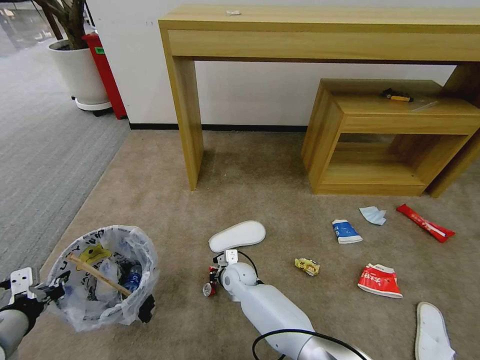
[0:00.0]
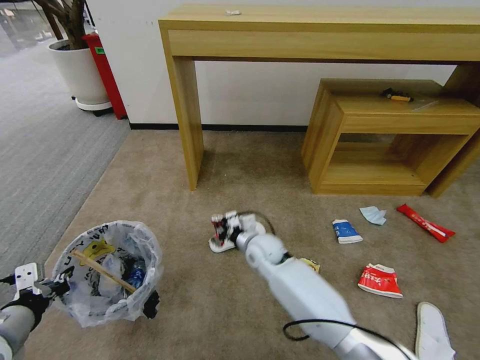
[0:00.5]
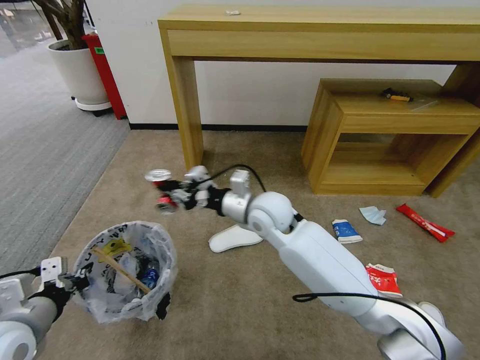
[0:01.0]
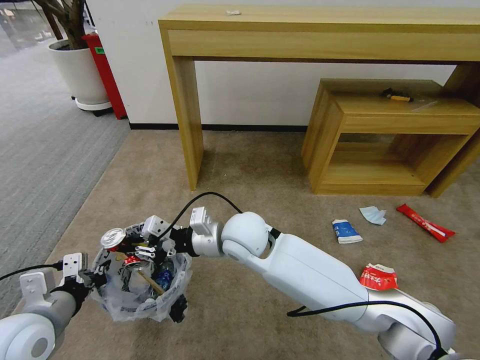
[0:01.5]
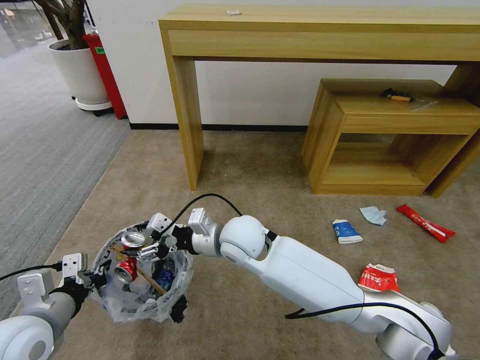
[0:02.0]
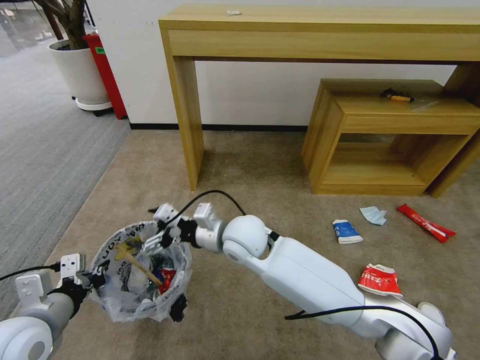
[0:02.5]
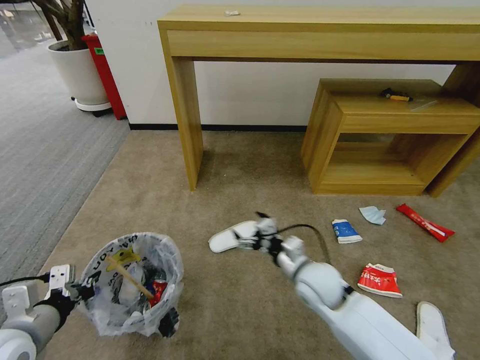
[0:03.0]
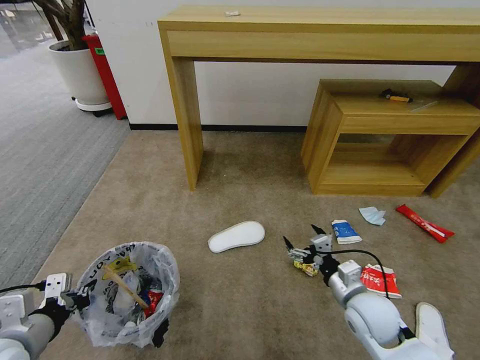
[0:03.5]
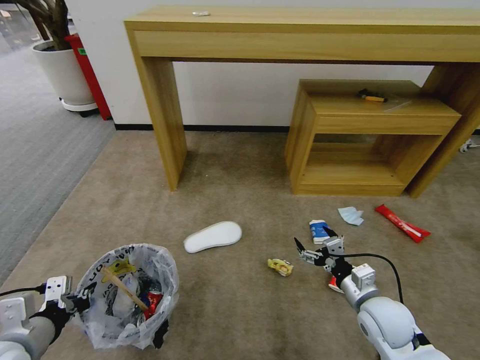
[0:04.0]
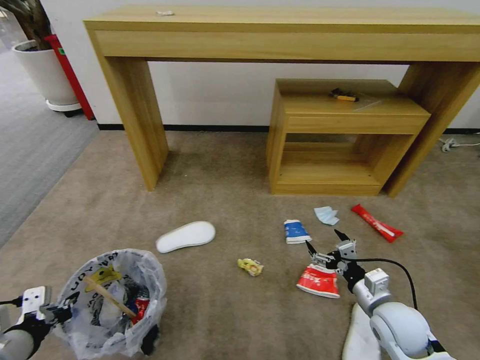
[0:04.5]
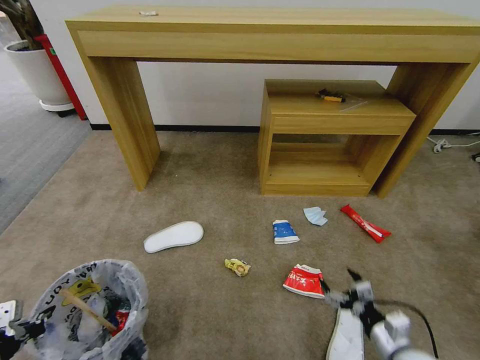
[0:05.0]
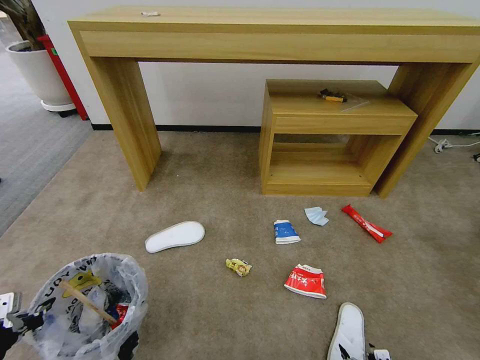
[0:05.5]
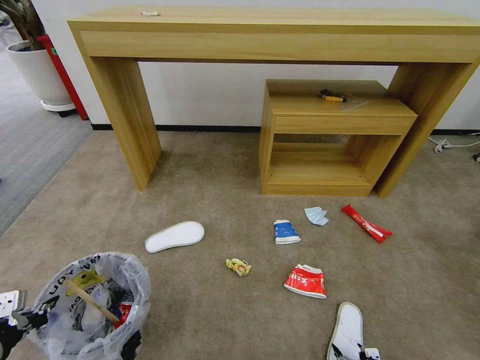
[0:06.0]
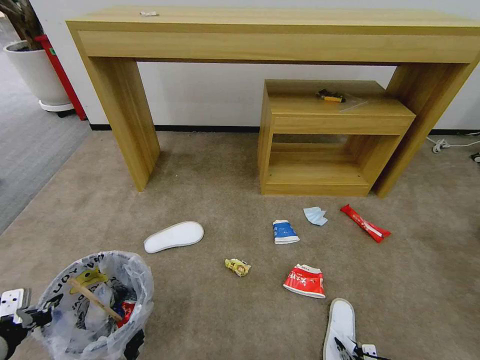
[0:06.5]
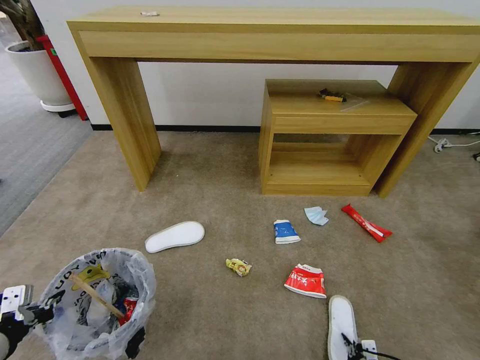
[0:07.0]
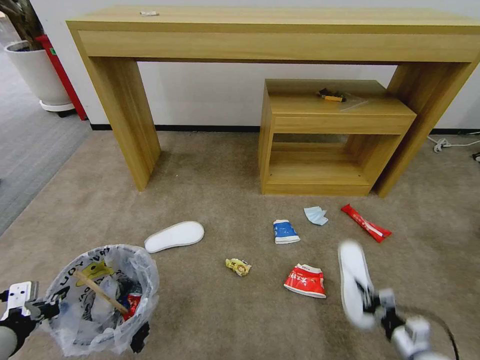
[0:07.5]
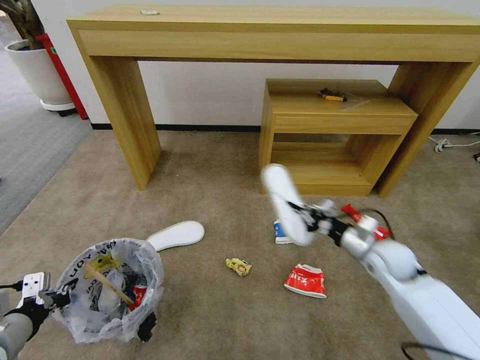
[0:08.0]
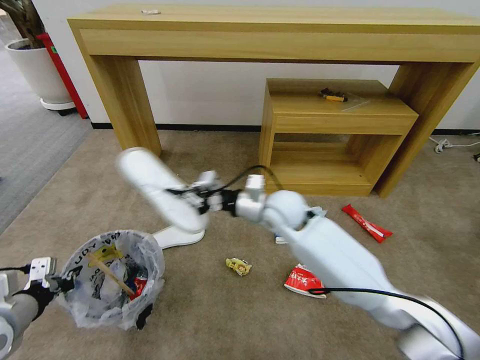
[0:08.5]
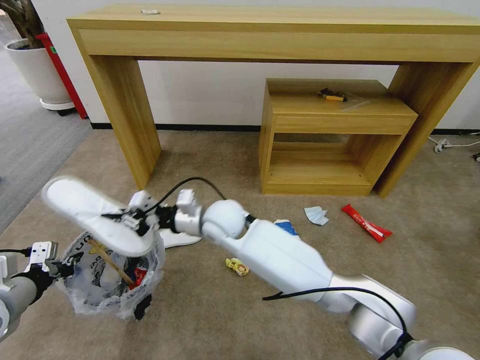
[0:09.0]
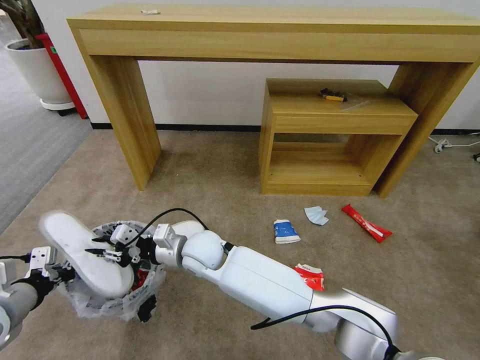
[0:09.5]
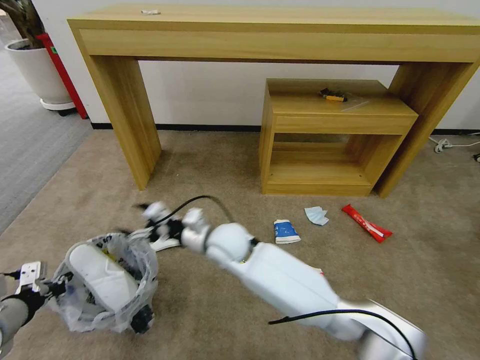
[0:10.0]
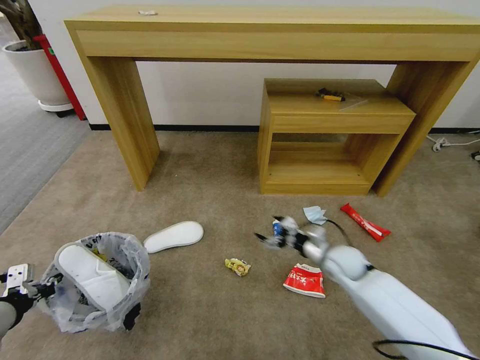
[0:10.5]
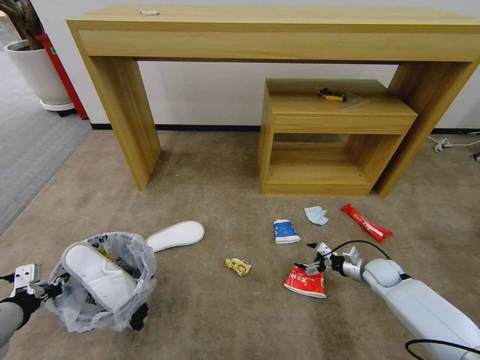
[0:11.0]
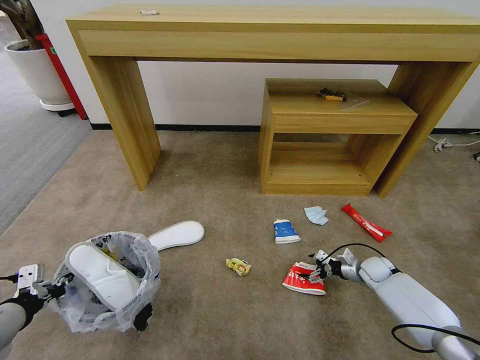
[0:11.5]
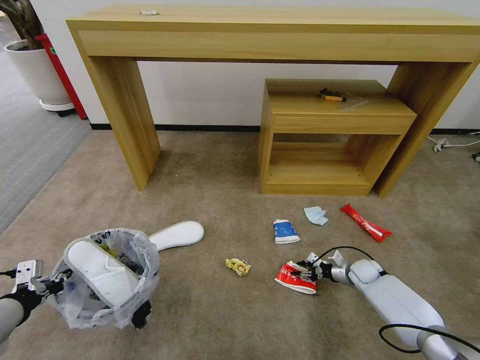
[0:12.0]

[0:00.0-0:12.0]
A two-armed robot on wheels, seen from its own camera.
Task of the whole recording: Pick up the trash bin and place the garbage on the floor into it.
0:00.0 to 0:02.0: The right gripper moves upward, some 25 cm, and opens up. The left gripper moves to the right, about 5 cm.
0:02.0 to 0:04.0: The left gripper moves some 5 cm, while the right gripper is displaced to the right, downward and backward by roughly 35 cm.
0:04.0 to 0:06.0: The left gripper goes some 5 cm to the left. Meanwhile the right gripper heads backward, downward and to the right, covering approximately 30 cm.
0:06.0 to 0:08.0: The right gripper heads forward and upward, covering roughly 40 cm, and closes up.
0:08.0 to 0:10.0: The right gripper shifts some 35 cm to the left, and opens its fingers.
0:10.0 to 0:12.0: The right gripper goes roughly 50 cm to the right and downward.

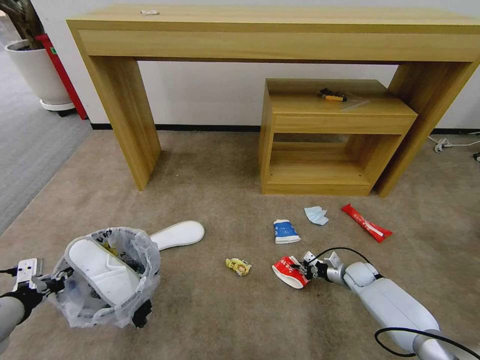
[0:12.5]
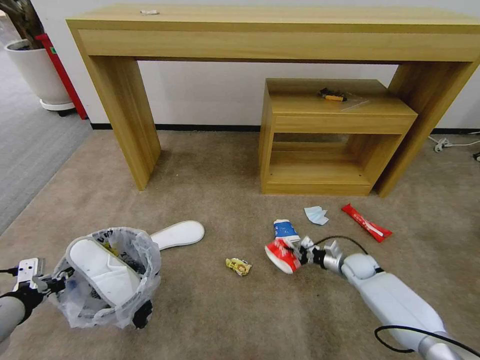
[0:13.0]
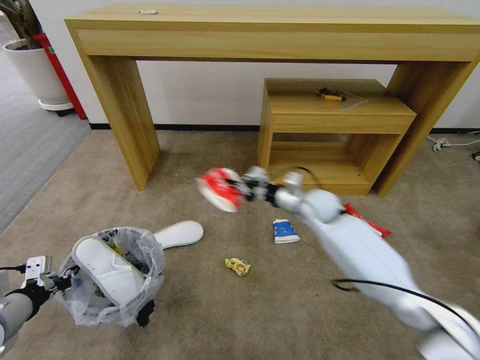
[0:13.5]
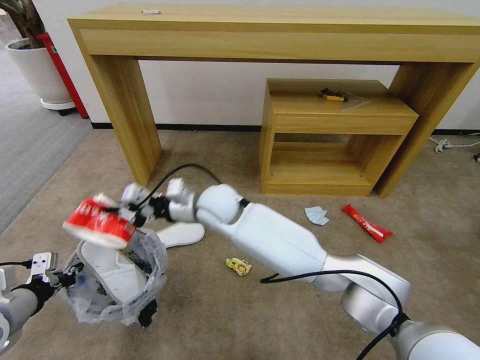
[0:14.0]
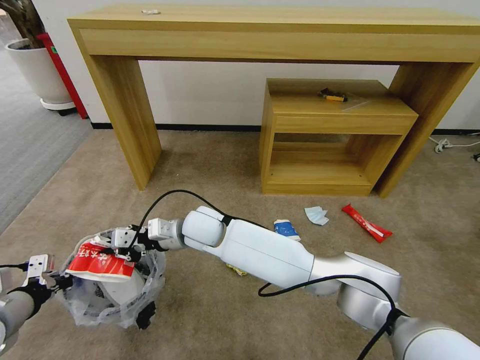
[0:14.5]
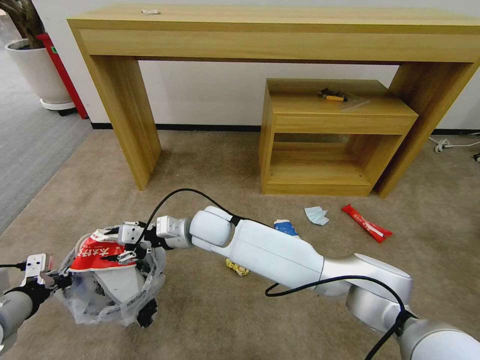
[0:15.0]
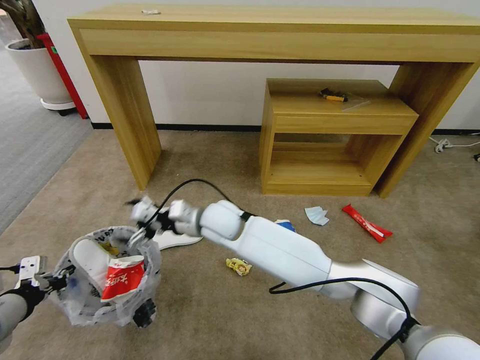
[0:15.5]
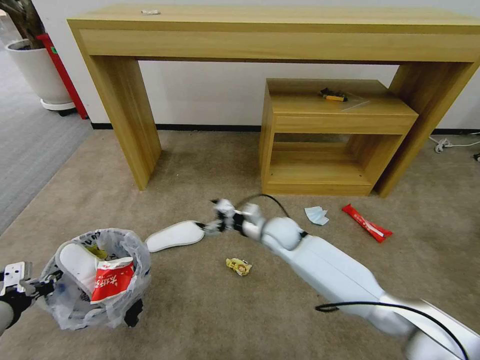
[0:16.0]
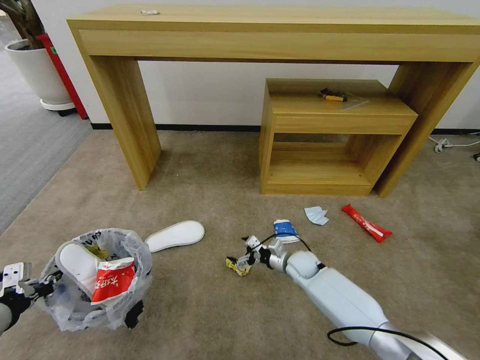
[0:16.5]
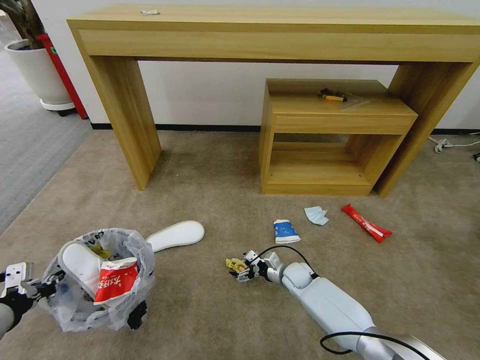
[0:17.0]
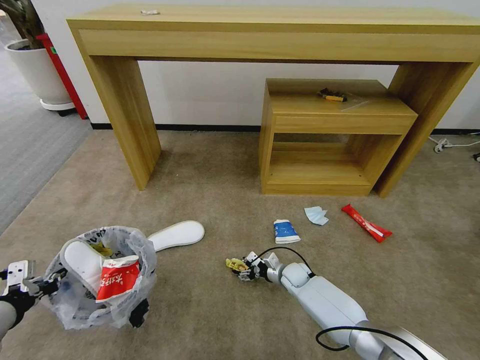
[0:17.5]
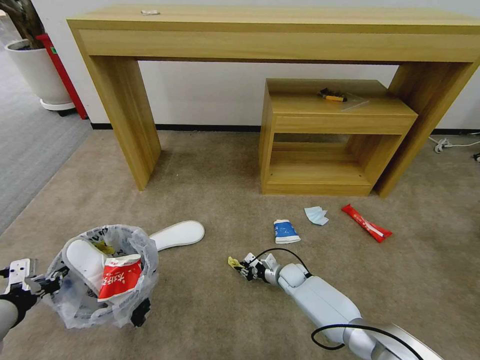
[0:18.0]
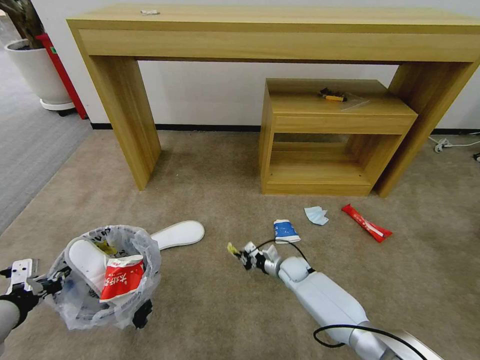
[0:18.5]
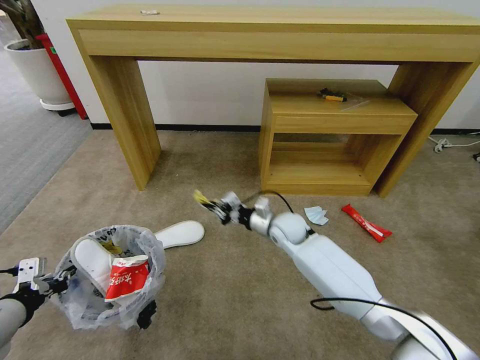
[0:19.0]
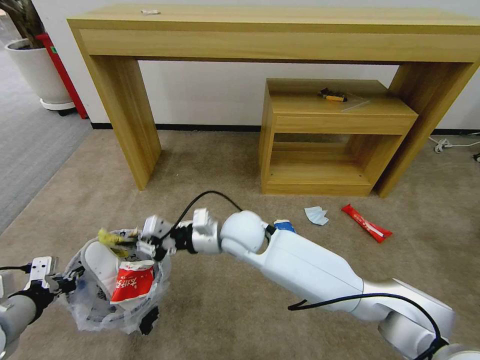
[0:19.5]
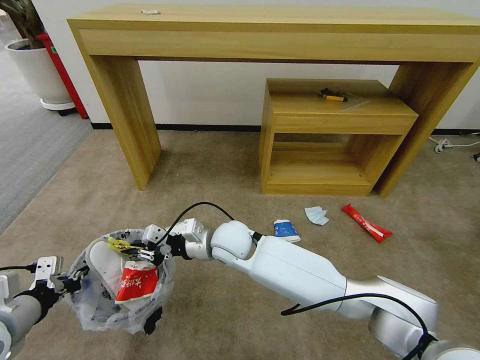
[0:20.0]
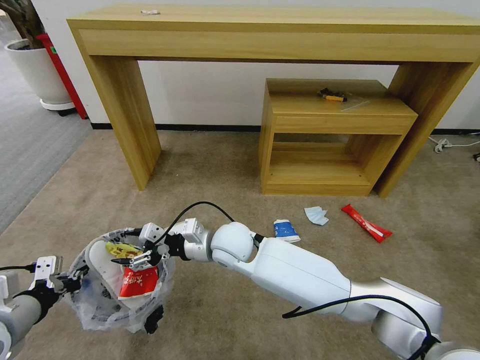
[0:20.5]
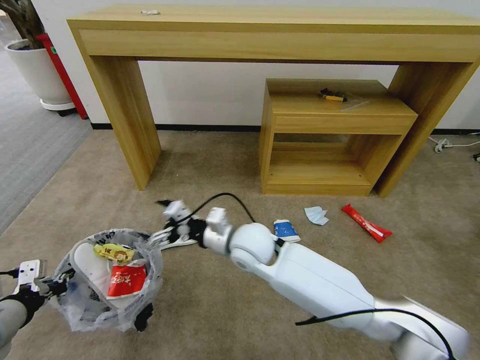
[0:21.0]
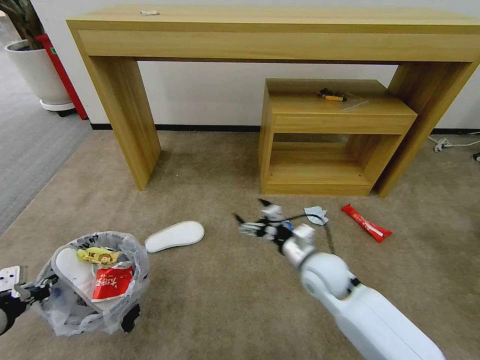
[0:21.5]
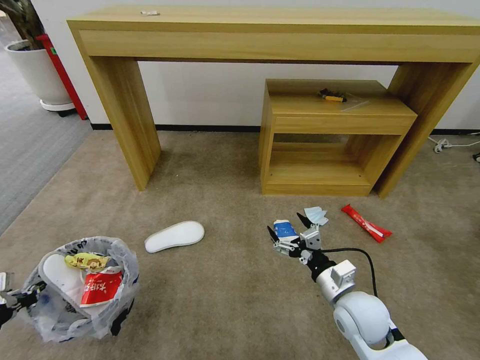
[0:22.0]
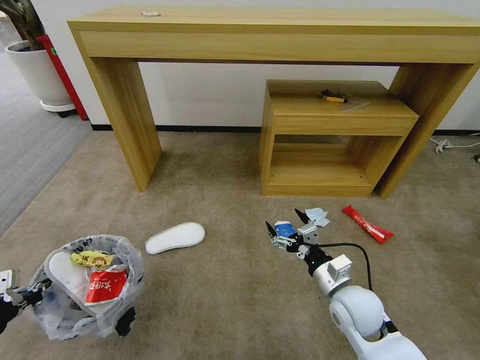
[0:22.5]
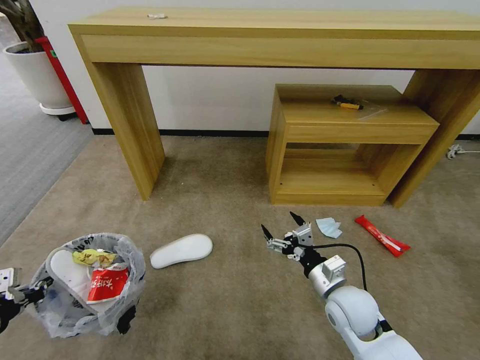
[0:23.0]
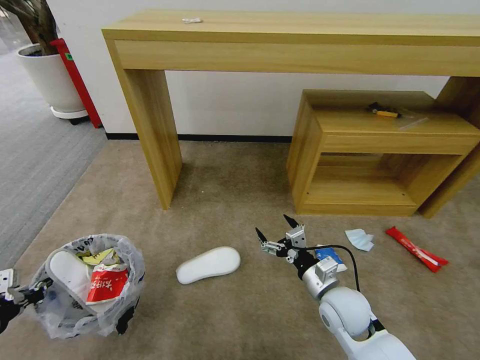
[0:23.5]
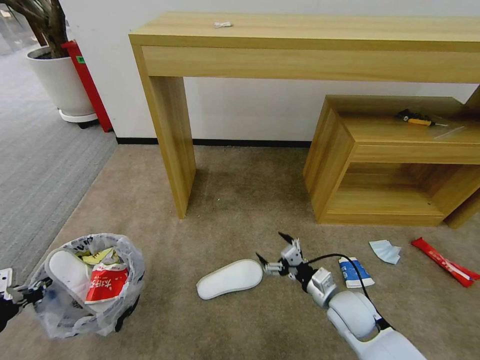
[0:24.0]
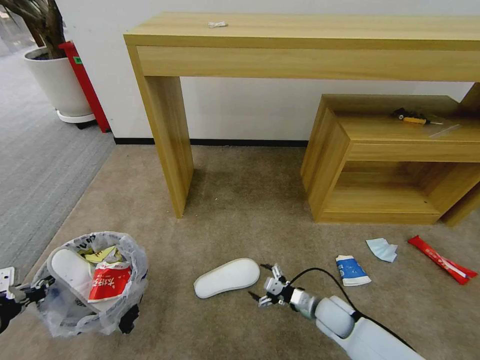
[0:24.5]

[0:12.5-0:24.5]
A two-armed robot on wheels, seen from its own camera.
Task of the whole recording: Pick up the trash bin and place the garbage on the floor into it.
0:12.5 to 0:14.5: The right gripper heads to the left and upward, covering roughly 50 cm.
0:14.5 to 0:16.5: The right gripper travels to the right and downward by roughly 35 cm, and opens its fingers.
0:16.5 to 0:18.5: The right gripper changes place by roughly 5 cm, and closes.
0:18.5 to 0:20.5: The right gripper goes about 30 cm upward and to the left, and opens its fingers.
0:20.5 to 0:22.5: The left gripper moves to the left, some 5 cm, while the right gripper moves to the right and backward, roughly 30 cm.
0:22.5 to 0:24.5: The right gripper heads downward, covering some 15 cm.

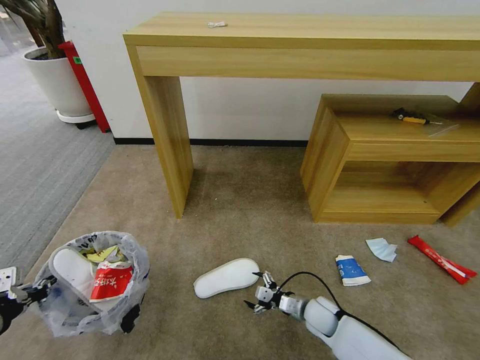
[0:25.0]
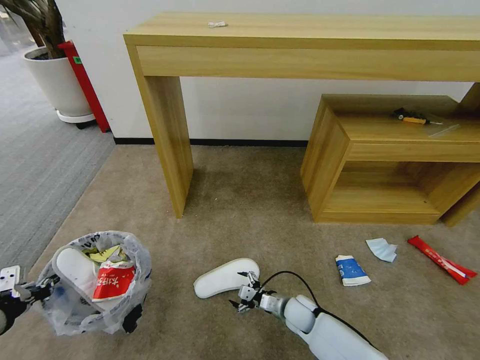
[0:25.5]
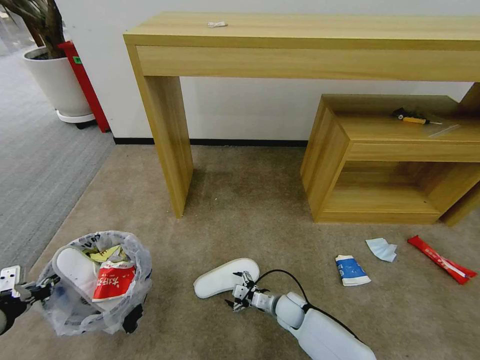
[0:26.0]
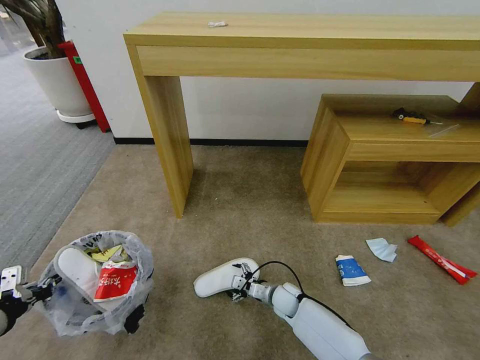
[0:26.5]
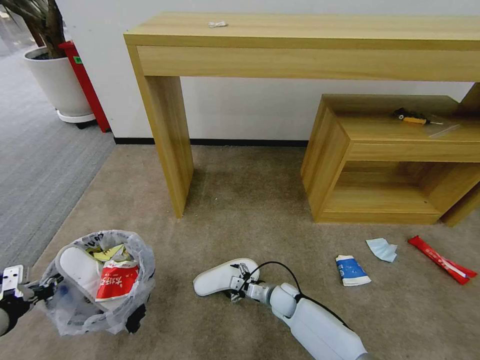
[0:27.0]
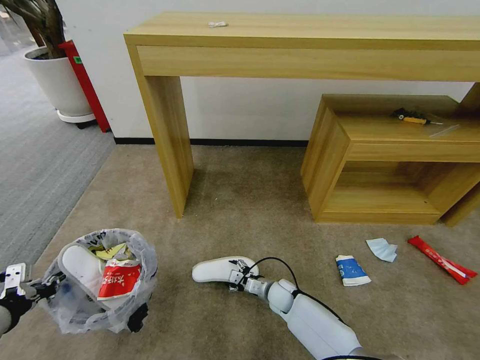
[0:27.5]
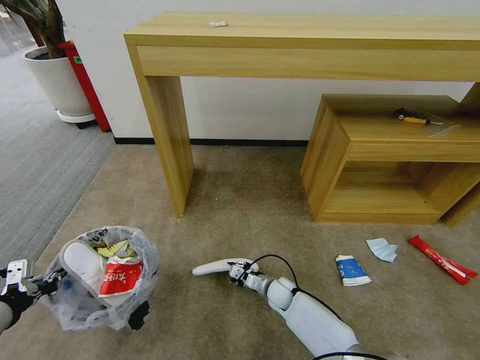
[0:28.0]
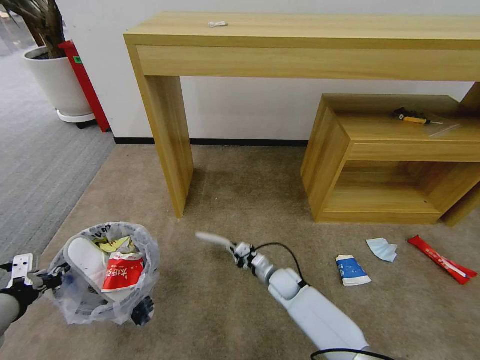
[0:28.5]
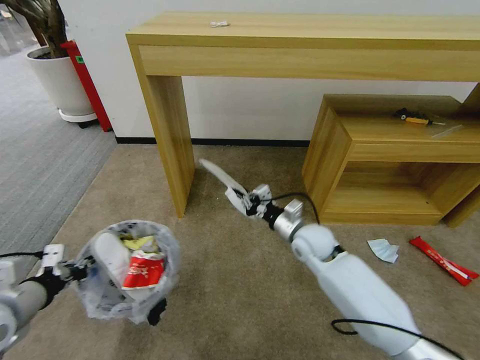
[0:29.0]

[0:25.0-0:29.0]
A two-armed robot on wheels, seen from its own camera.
Task of the whole recording: Pick up the trash bin and place the garbage on the floor into it.
0:25.0 to 0:27.0: The right gripper heads to the left and forward, covering about 10 cm.
0:27.0 to 0:29.0: The right gripper goes approximately 25 cm upward, and closes; the left gripper shifts by approximately 5 cm.
